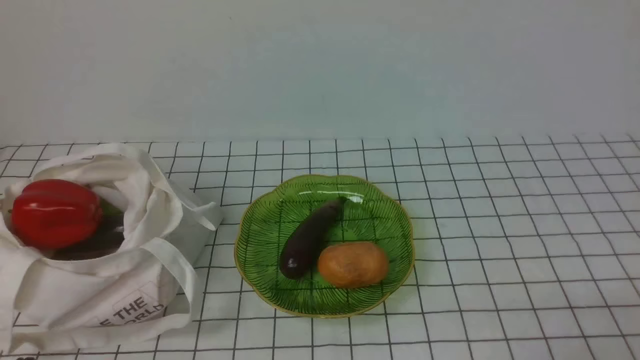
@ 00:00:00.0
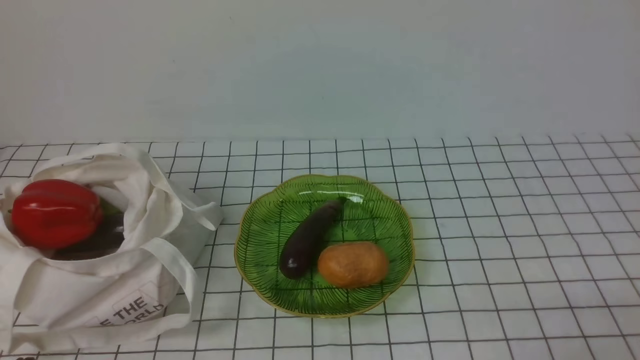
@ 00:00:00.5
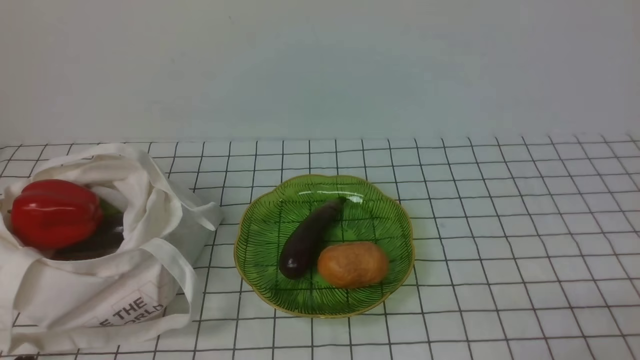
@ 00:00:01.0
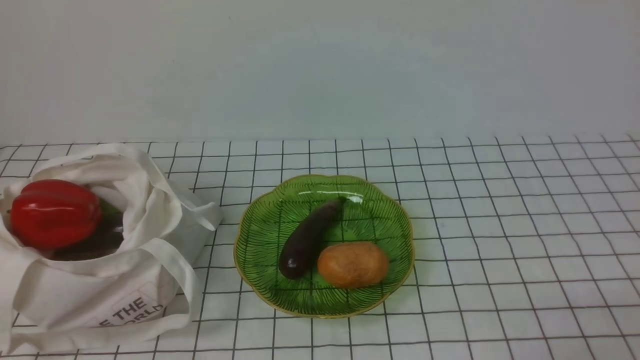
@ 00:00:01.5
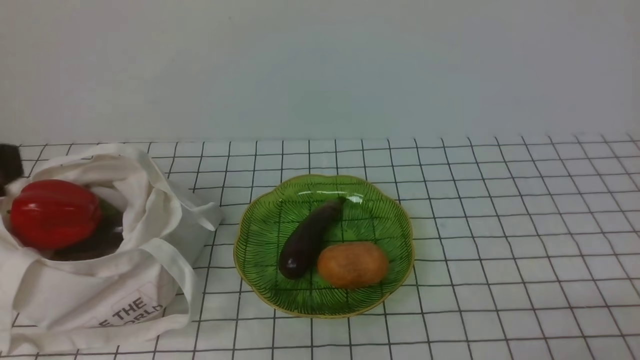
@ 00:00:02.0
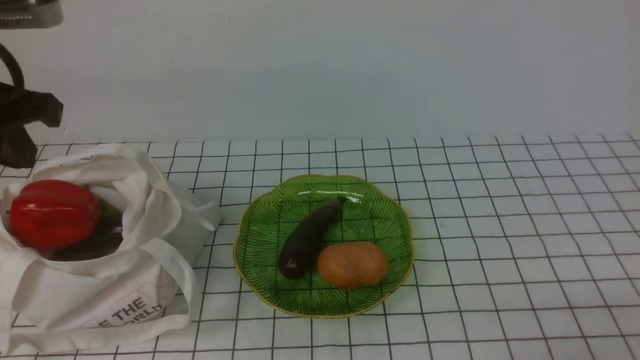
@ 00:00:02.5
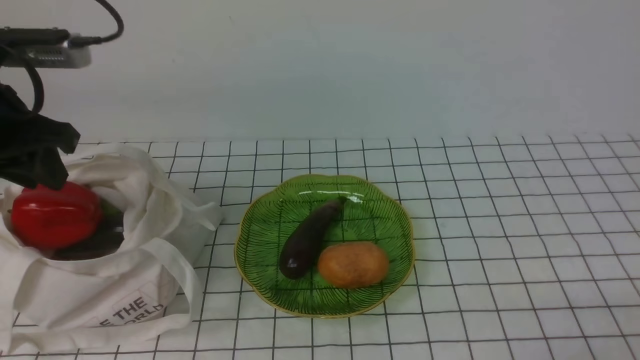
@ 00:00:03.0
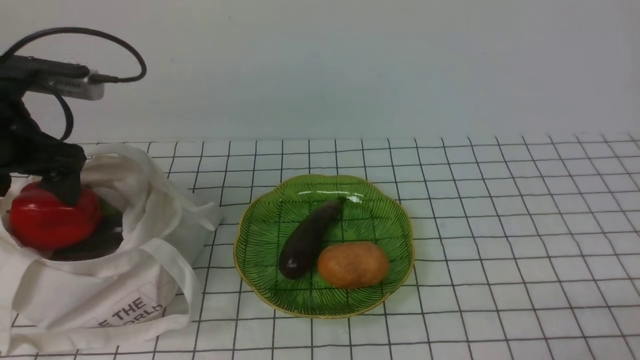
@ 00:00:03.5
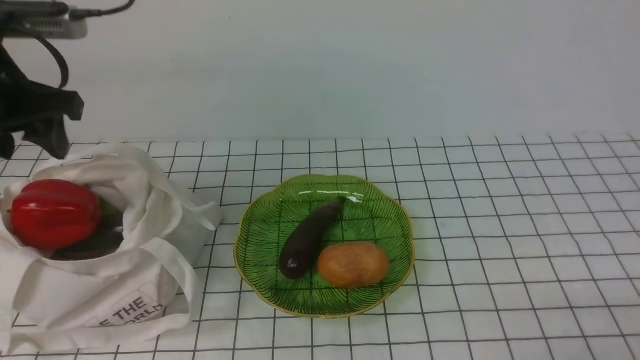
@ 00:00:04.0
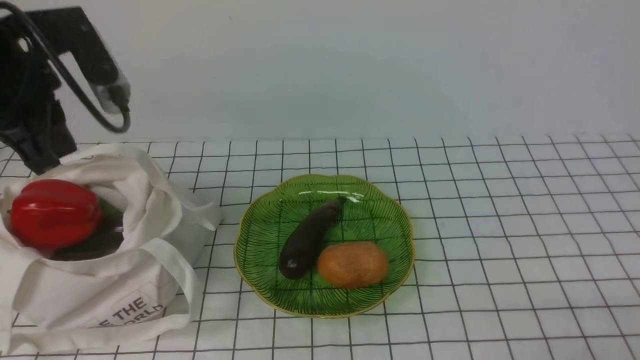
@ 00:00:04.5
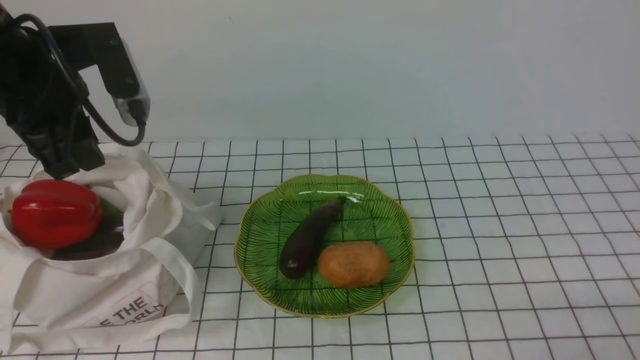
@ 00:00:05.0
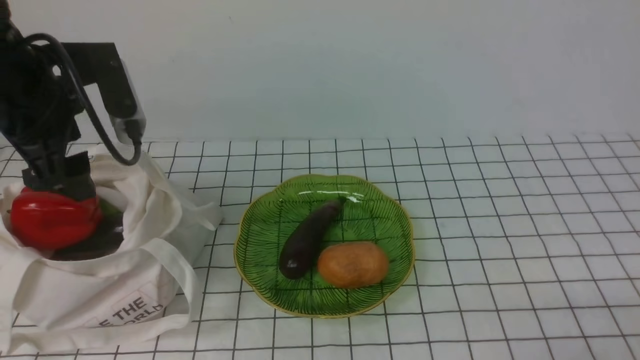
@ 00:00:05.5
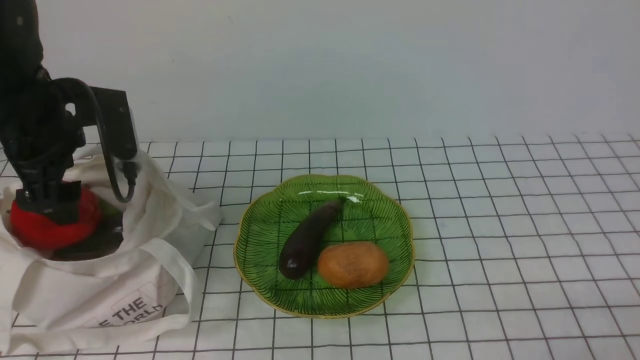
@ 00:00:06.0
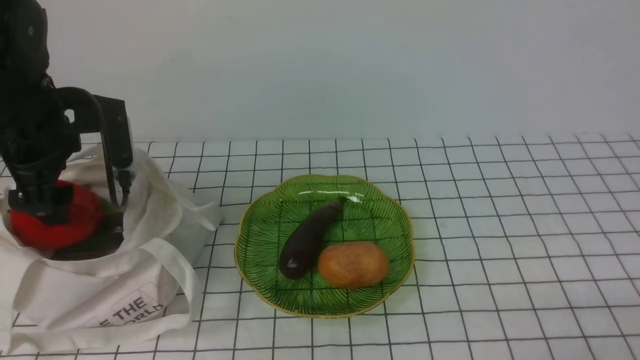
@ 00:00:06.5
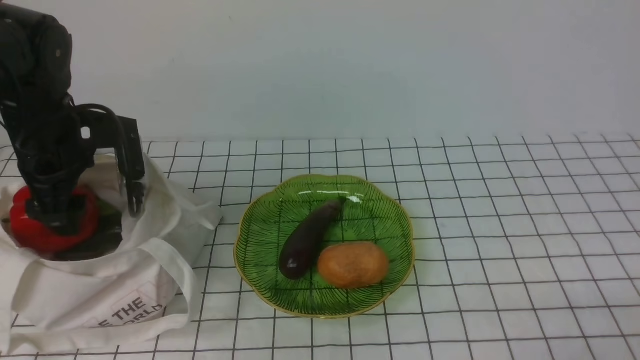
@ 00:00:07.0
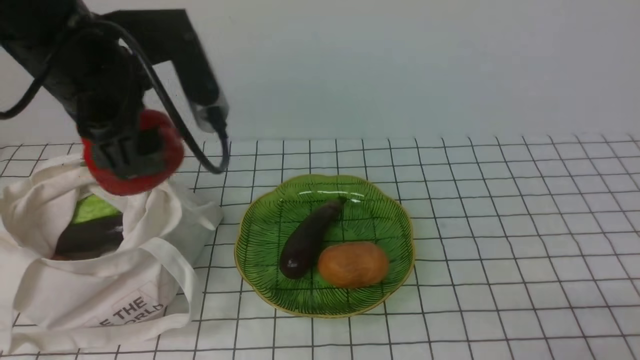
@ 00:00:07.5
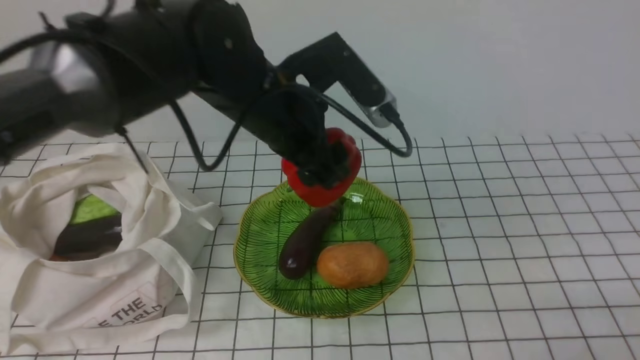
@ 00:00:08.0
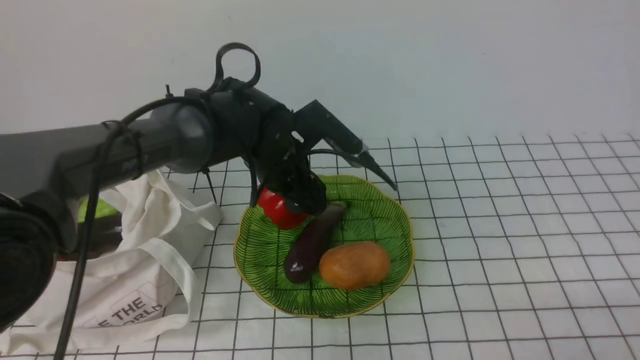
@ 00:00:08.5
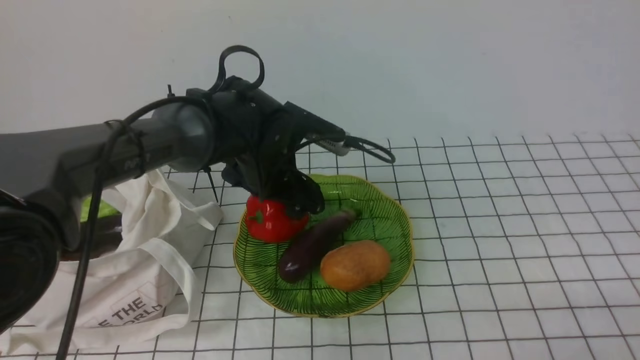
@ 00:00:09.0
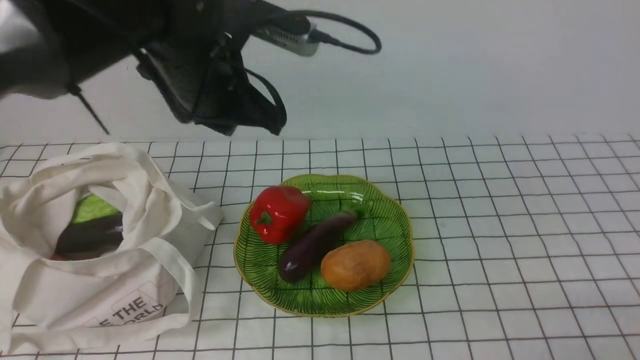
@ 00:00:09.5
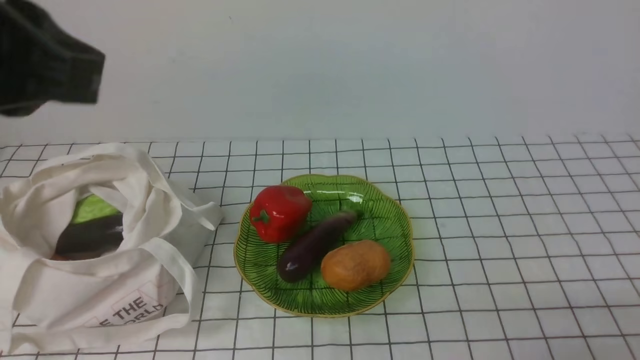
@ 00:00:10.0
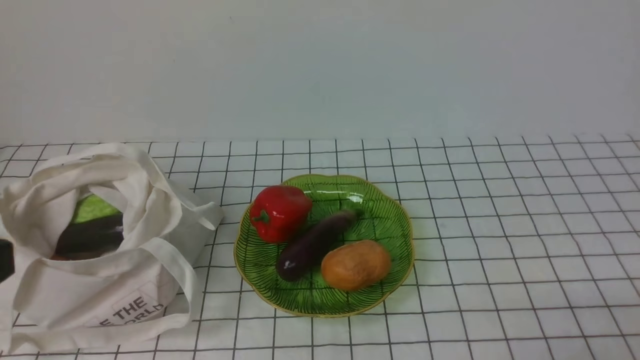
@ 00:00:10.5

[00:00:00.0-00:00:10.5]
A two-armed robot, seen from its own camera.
Task of the whole recording: take vegetables from bag on white checkered tablecloth place on plate.
Step, 00:00:00.0 to 00:00:07.0: Grasp the bell pepper with left gripper.
Step, 00:00:07.5 to 00:00:09.0: Place the bell pepper on the plate with left gripper.
00:00:02.0 to 00:00:04.0: The left gripper moves forward, approximately 20 cm, and opens up.
00:00:04.0 to 00:00:06.5: The left gripper travels downward by approximately 5 cm, and closes, then opens again.
00:00:06.5 to 00:00:08.5: The left gripper is displaced to the right by some 20 cm.
00:00:08.5 to 00:00:10.5: The left gripper shifts about 40 cm backward, upward and to the left, and closes.

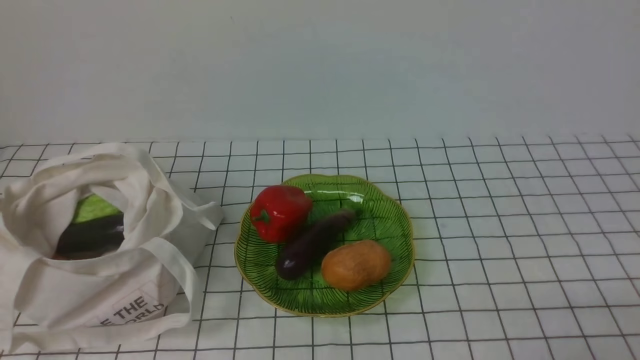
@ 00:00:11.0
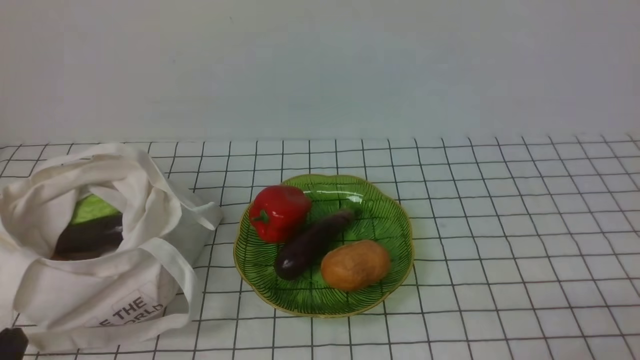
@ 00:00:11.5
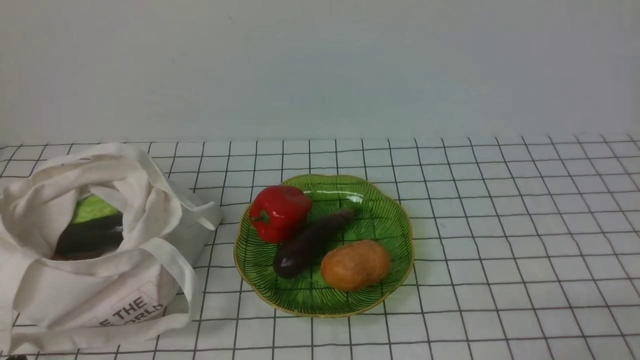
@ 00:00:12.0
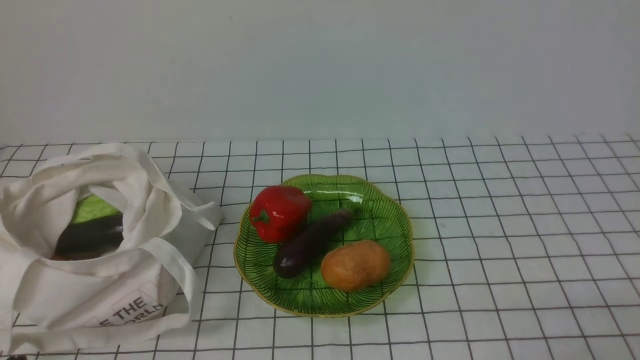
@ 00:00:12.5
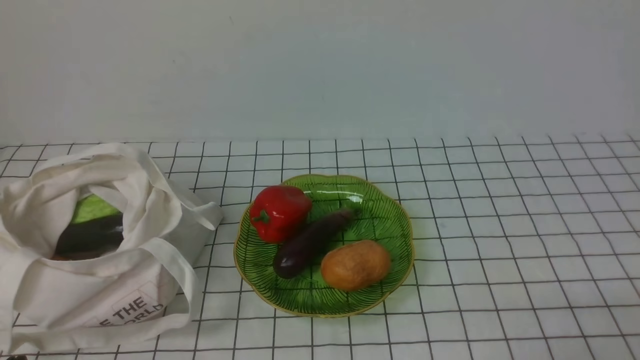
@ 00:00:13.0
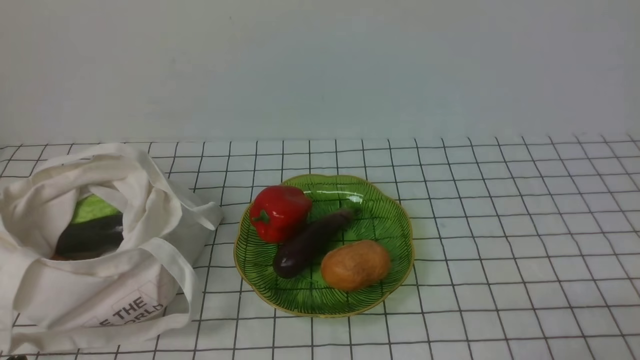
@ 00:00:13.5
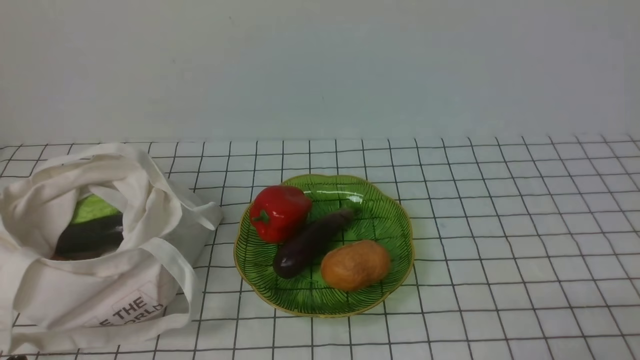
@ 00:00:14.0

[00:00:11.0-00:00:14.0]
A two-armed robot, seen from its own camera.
Task of the whole recording: take vegetables from bag on white checkered tablecloth place on plate.
00:00:12.5 to 00:00:14.0: Both grippers stay about where they are.
